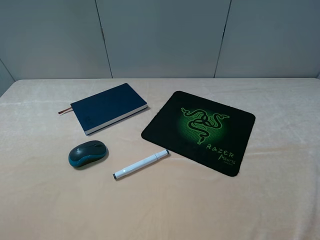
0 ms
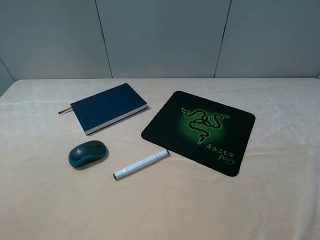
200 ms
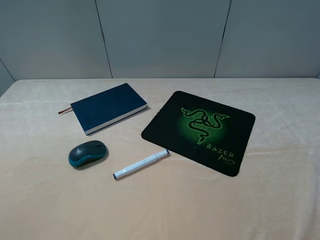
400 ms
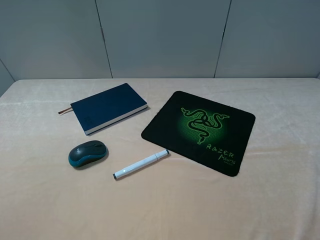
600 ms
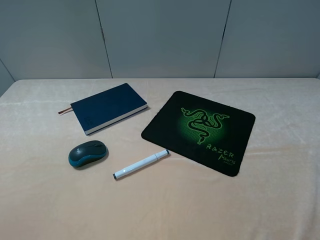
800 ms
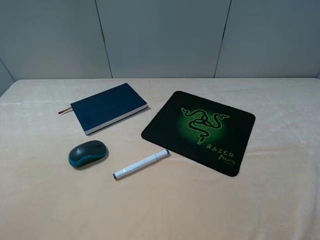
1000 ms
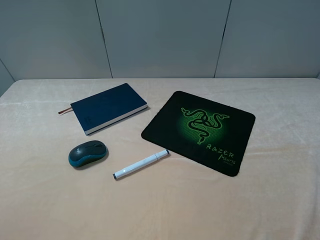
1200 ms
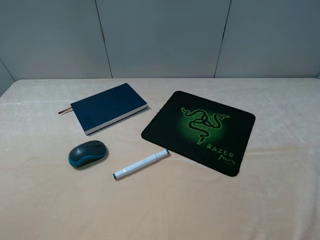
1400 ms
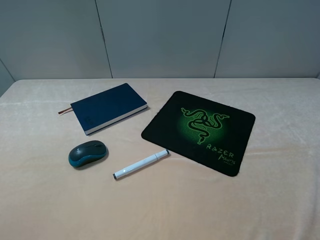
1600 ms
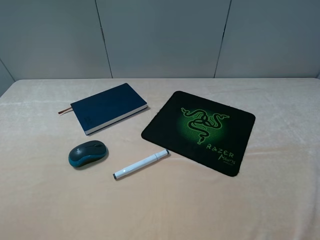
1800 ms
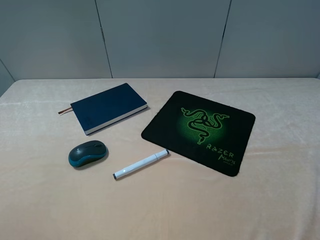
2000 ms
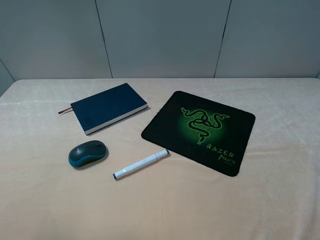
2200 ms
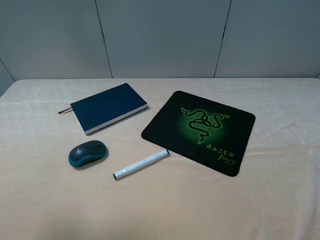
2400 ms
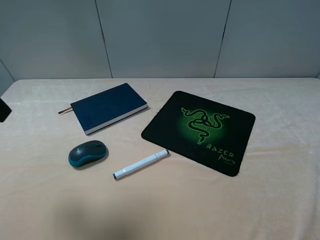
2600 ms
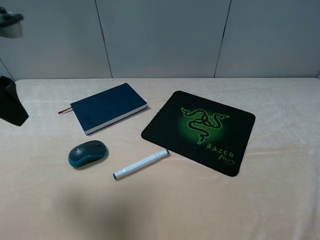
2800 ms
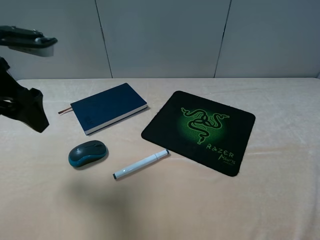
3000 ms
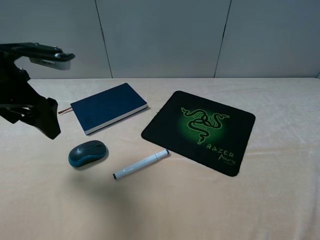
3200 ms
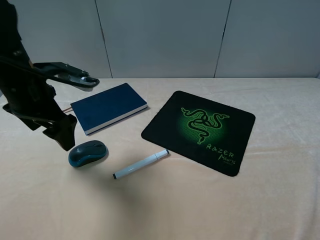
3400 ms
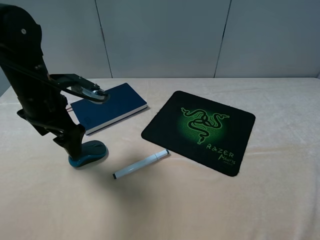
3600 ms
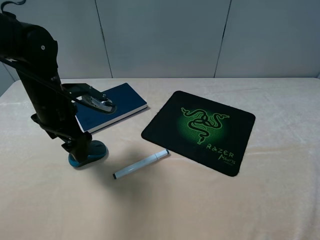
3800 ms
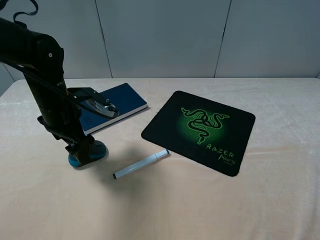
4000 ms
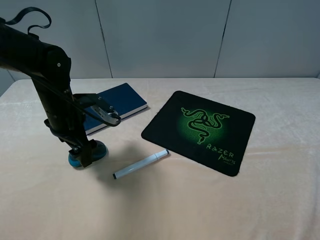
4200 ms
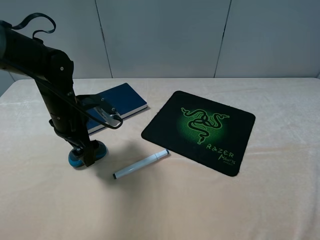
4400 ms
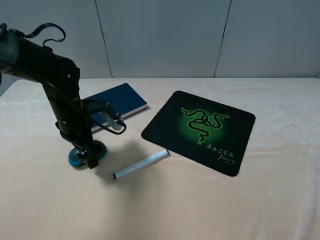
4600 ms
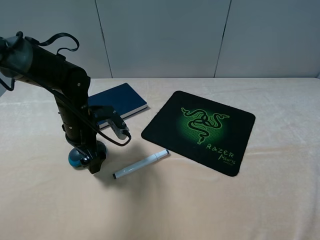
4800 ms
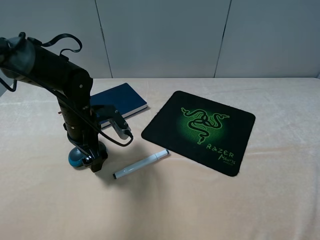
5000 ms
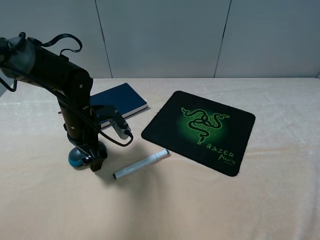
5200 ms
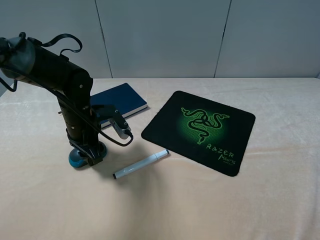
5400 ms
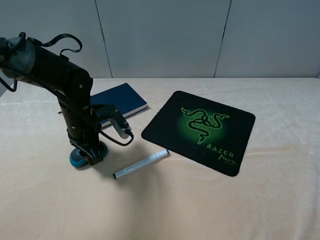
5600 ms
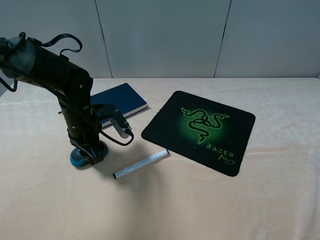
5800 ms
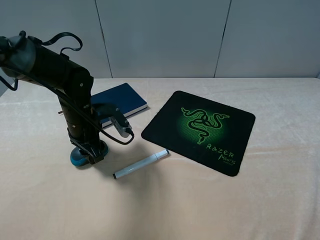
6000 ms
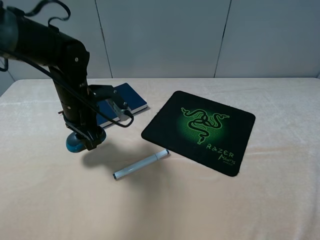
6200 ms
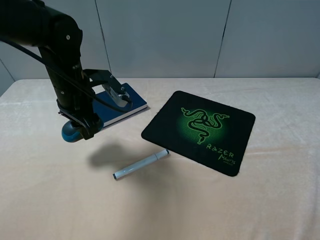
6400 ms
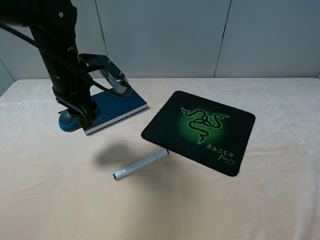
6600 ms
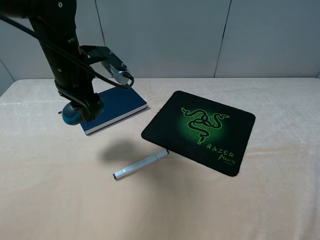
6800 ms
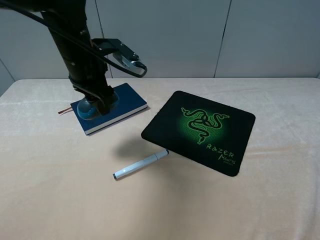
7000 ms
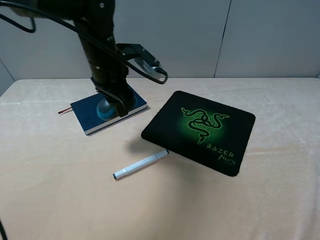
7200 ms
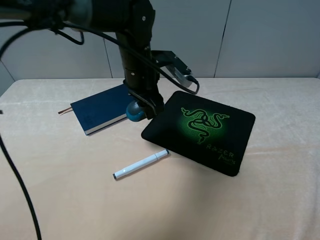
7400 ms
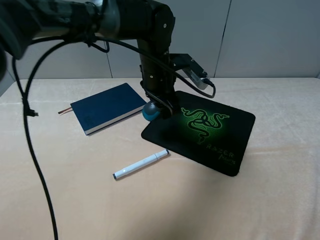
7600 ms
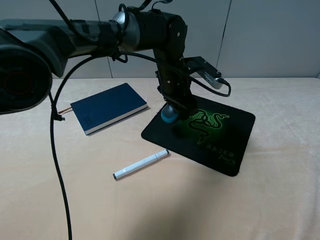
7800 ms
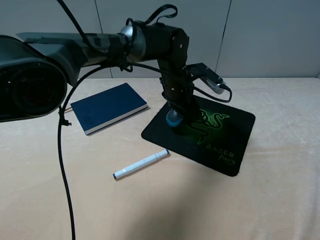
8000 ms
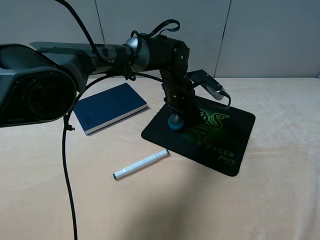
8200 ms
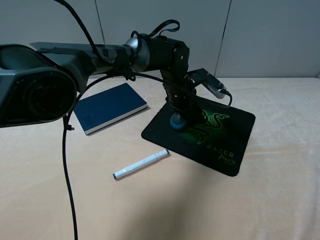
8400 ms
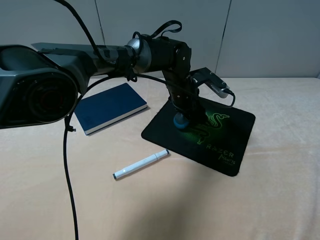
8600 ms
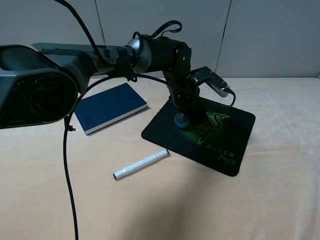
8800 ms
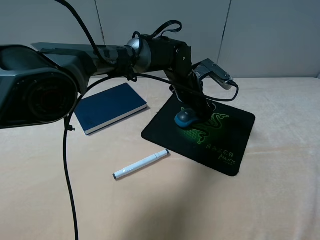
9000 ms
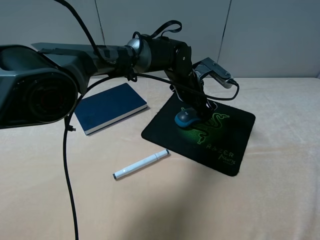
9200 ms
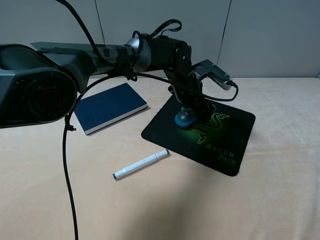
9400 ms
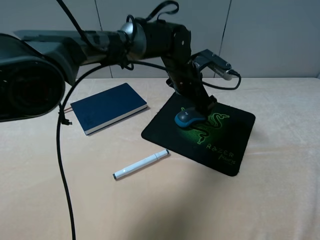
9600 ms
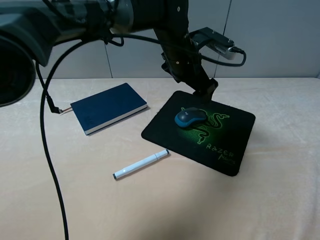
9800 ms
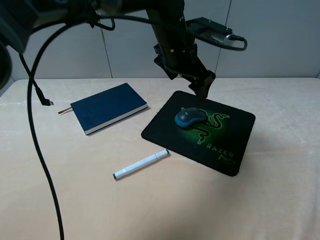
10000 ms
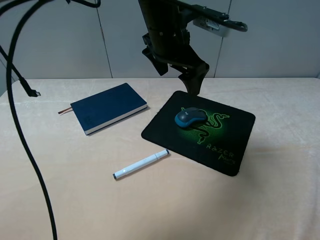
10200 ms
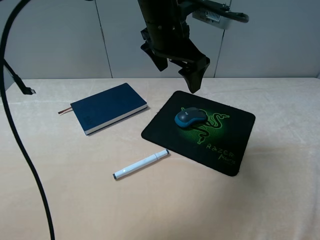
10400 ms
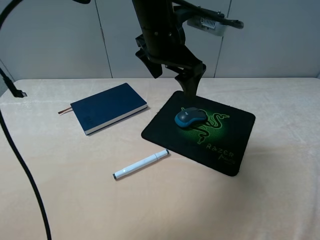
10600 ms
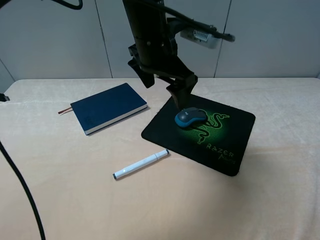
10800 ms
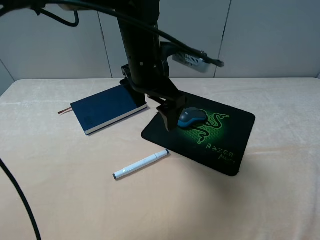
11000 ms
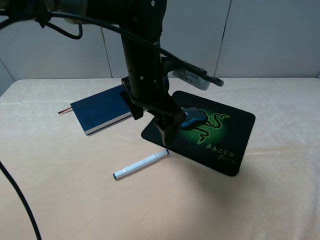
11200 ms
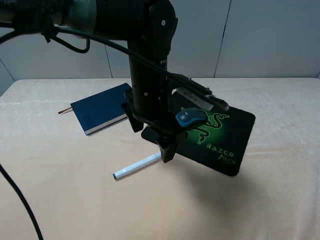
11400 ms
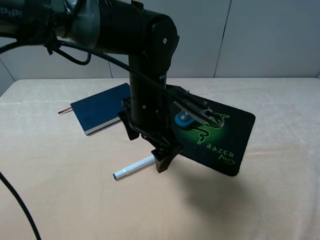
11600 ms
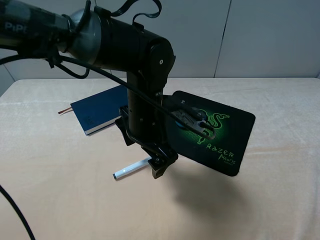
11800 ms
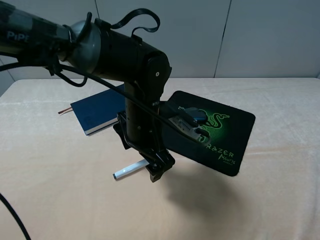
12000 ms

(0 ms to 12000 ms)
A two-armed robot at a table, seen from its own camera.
Step, 0 ms - 5600 ms: Grasp the mouse with the left gripper.
Step, 5800 ms - 9600 ms: Place the mouse on the mouse pad with the left gripper.
1600 ms - 3000 ms: The left gripper moves forward, approximately 25 cm.
3000 ms - 4400 ms: The left gripper travels downward and forward by roughly 15 cm.
4400 ms - 6000 ms: The left gripper closes up.
6000 ms - 7600 ms: The left gripper shifts roughly 20 cm to the right and upward.
7600 ms - 9000 ms: The left gripper is displaced downward and to the right by approximately 10 cm, and opens its fingers.
9000 ms - 10400 ms: The left gripper shifts roughly 15 cm upward.
10400 ms - 12000 ms: The left gripper is displaced downward and backward by roughly 15 cm.

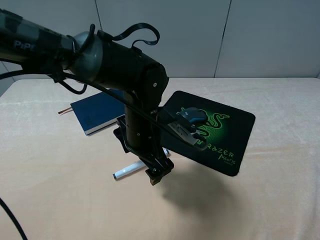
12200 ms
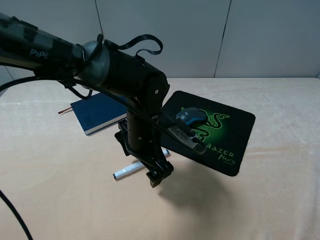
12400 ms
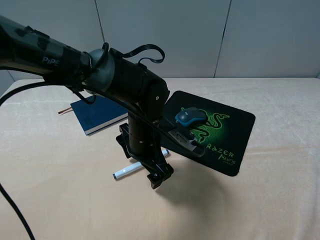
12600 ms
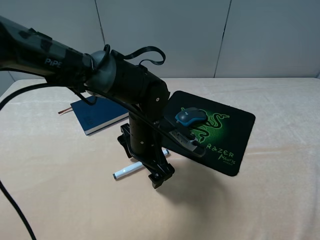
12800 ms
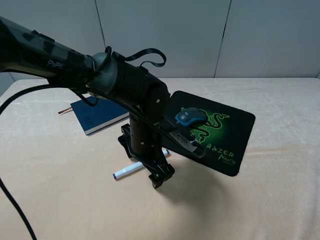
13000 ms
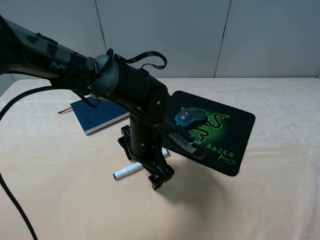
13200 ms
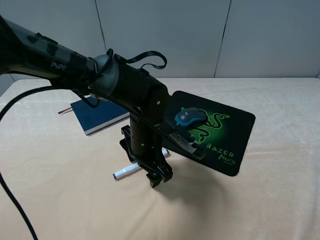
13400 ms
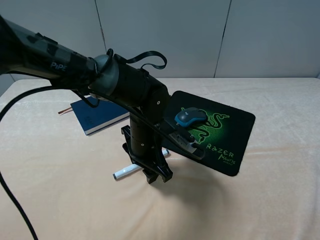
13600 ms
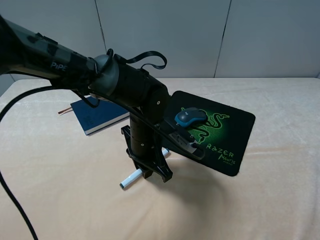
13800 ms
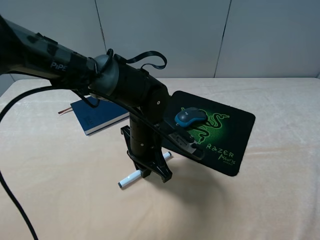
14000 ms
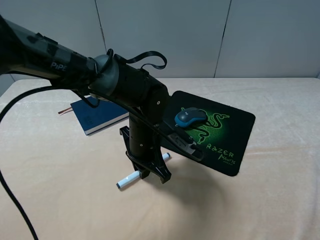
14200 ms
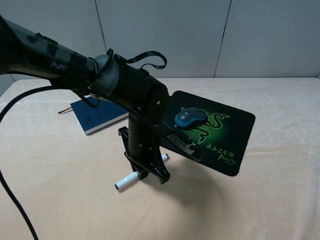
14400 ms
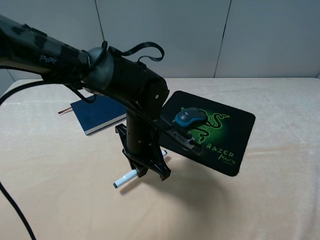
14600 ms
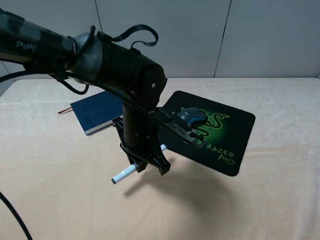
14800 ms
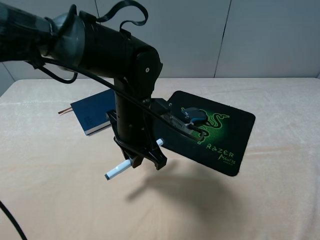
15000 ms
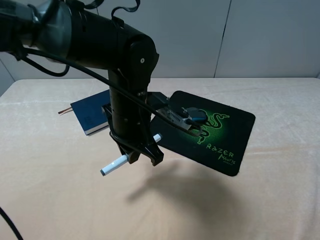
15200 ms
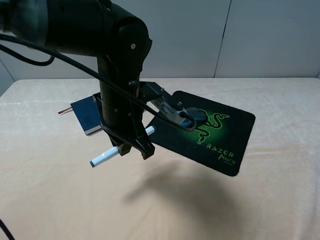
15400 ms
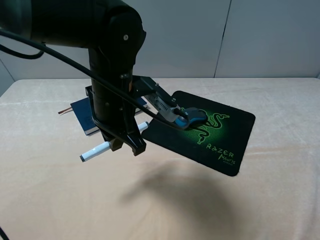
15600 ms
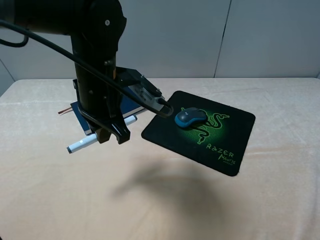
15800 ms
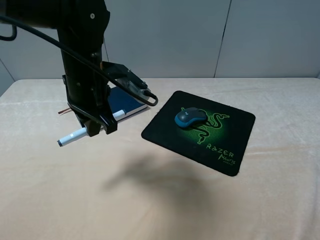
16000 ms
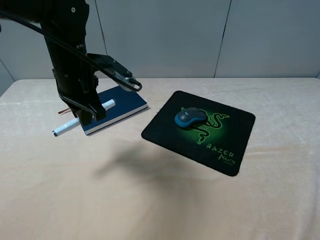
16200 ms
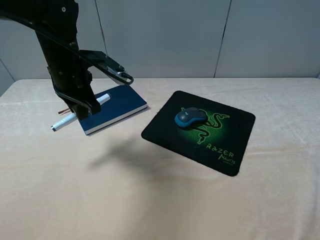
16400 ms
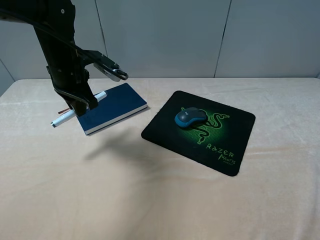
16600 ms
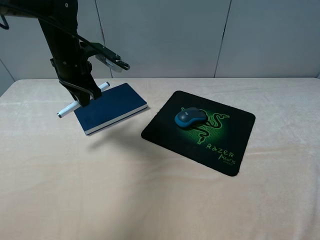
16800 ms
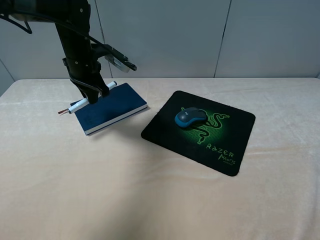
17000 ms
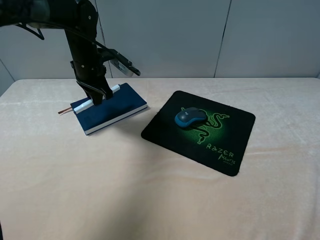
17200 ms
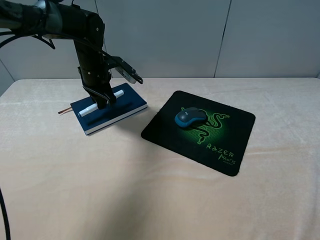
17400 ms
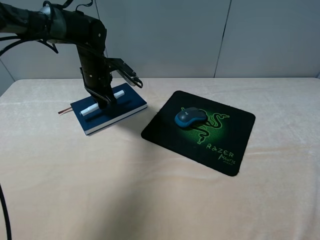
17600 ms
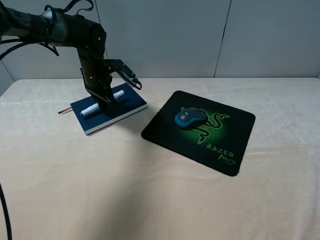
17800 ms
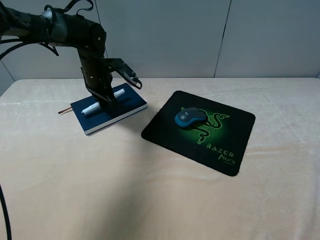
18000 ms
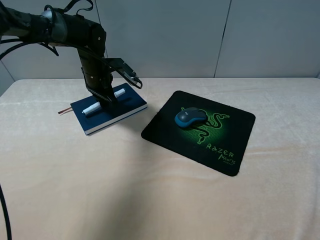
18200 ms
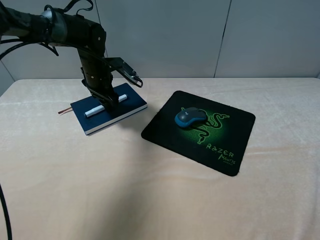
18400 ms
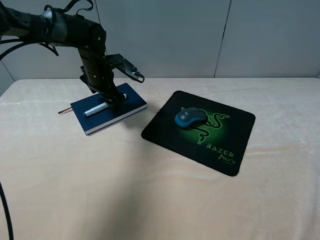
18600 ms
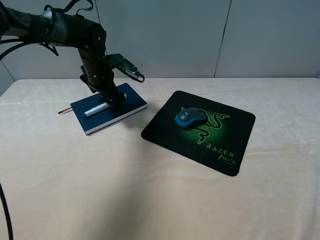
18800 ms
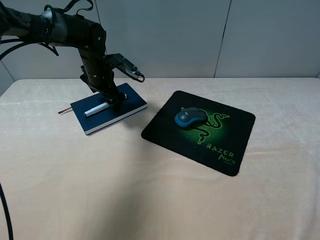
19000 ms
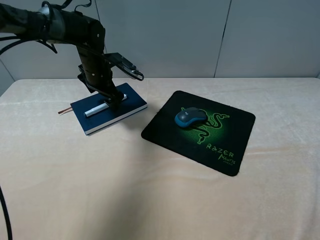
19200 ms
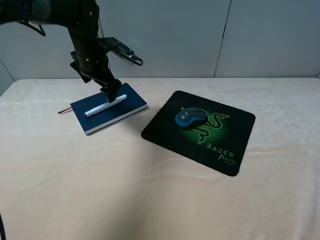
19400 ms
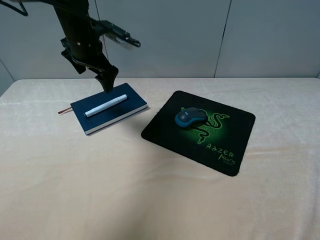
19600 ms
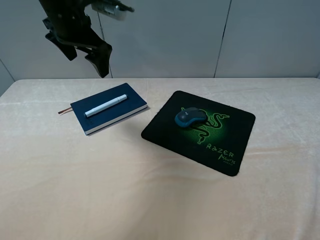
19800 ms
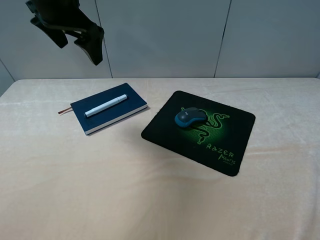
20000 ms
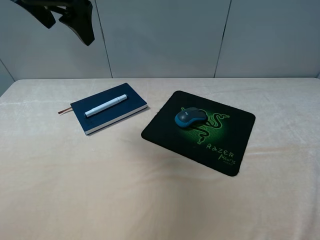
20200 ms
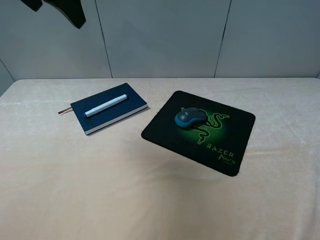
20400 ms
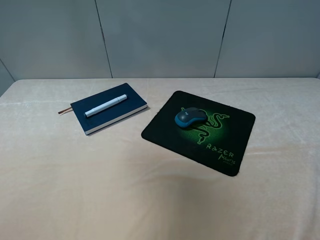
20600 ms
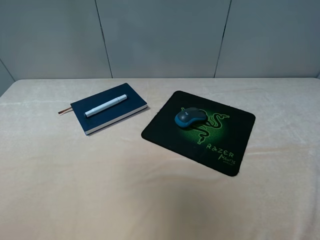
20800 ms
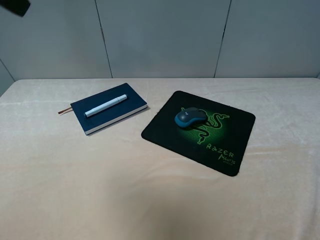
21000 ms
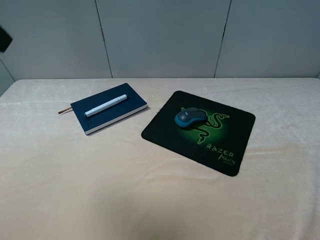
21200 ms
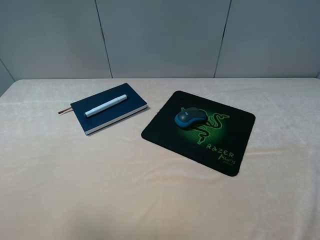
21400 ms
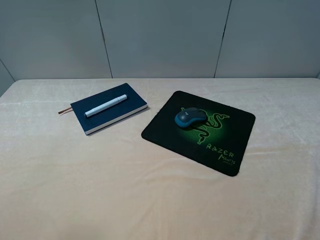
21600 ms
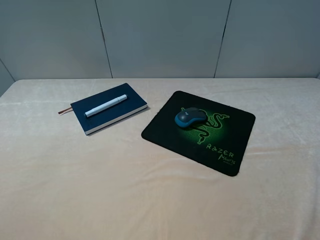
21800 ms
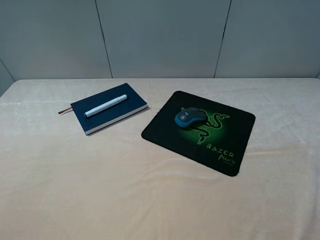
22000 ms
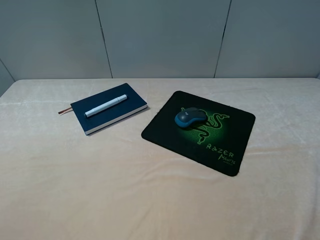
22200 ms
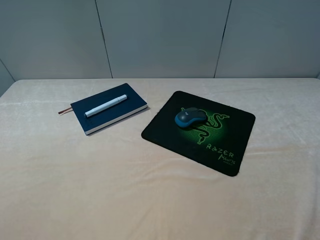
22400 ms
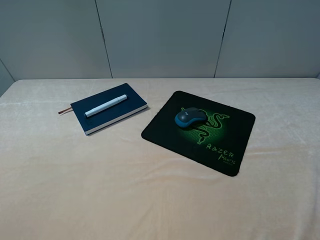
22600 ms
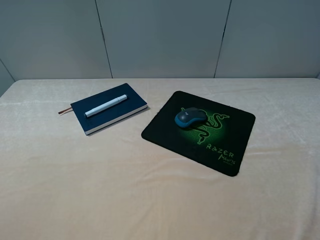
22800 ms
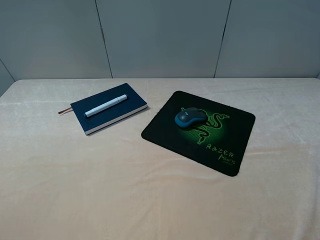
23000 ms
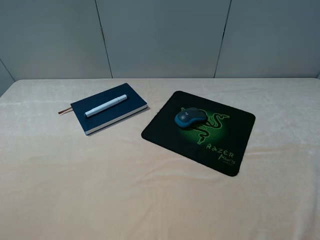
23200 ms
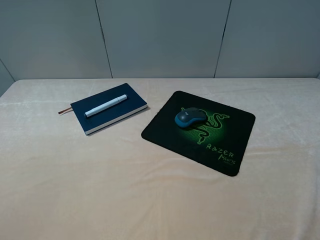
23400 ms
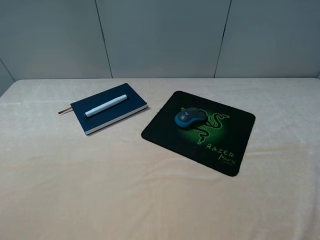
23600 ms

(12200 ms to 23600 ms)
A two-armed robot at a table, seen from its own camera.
Step, 12200 ms - 14200 ms: Grasp the marker with the left gripper.
Step, 14400 ms - 18400 ms: Place the marker on the notebook with the left gripper.
12200 ms - 13600 ms: The left gripper closes its fingers.
13600 ms - 15000 ms: The left gripper goes approximately 5 cm upward, and closes.
15000 ms - 16400 ms: The left gripper heads to the left and forward, covering some 15 cm.
16400 ms - 17800 ms: The left gripper is displaced forward and downward by approximately 15 cm.
17800 ms - 19400 ms: The left gripper is displaced upward by approximately 5 cm, and opens.
19400 ms - 20800 ms: The left gripper moves upward and backward, some 30 cm.
20800 ms - 22200 ms: The left gripper goes some 30 cm backward and downward.
